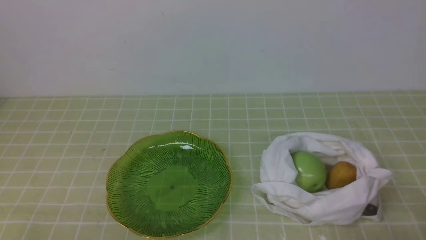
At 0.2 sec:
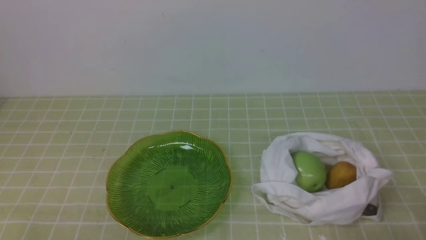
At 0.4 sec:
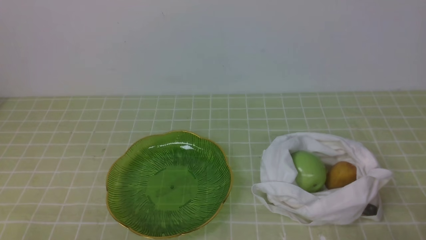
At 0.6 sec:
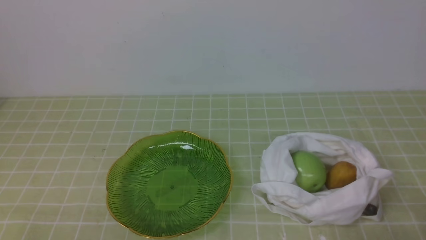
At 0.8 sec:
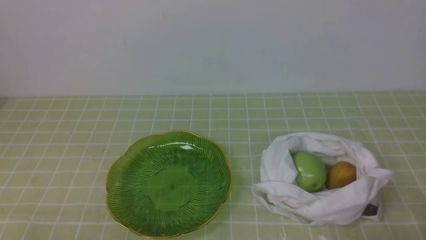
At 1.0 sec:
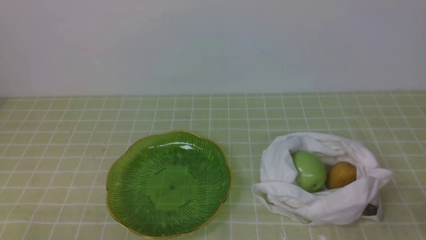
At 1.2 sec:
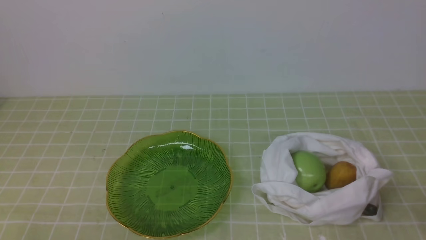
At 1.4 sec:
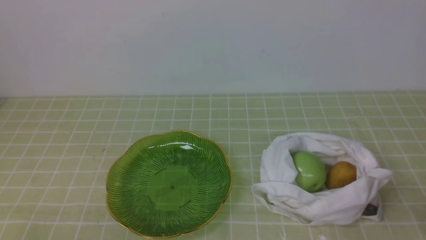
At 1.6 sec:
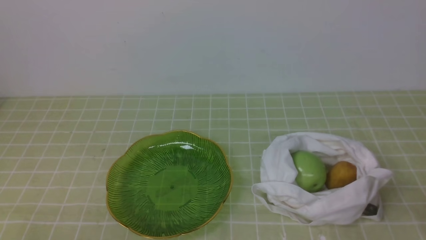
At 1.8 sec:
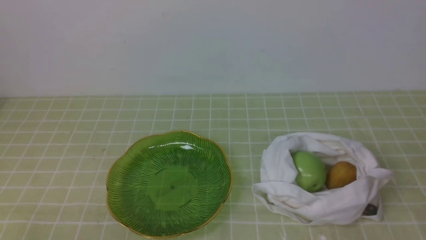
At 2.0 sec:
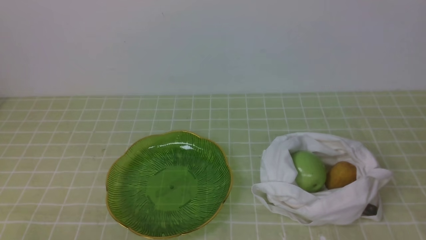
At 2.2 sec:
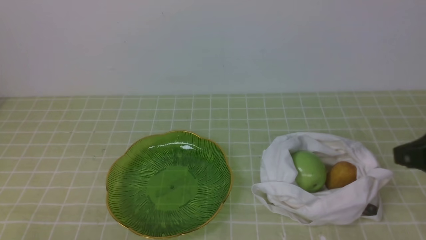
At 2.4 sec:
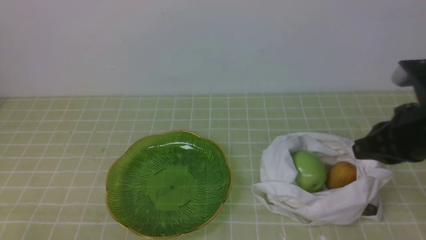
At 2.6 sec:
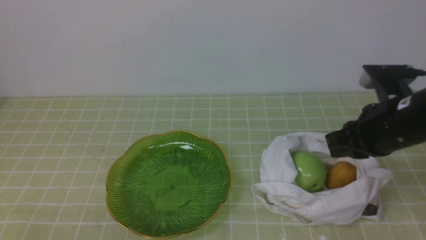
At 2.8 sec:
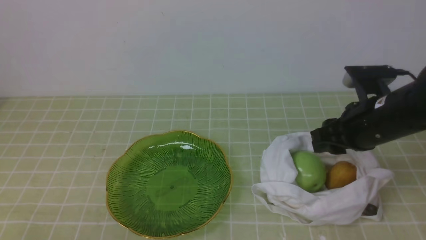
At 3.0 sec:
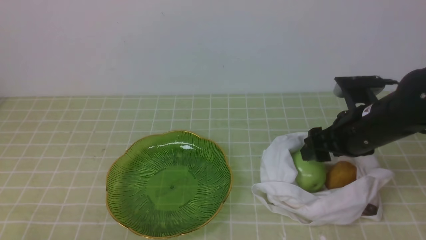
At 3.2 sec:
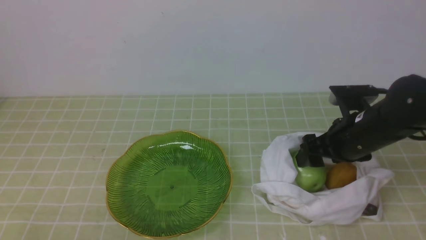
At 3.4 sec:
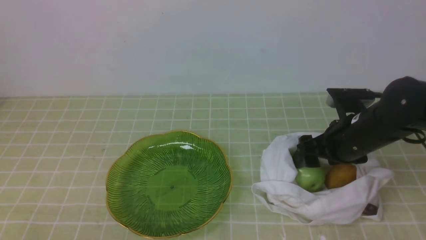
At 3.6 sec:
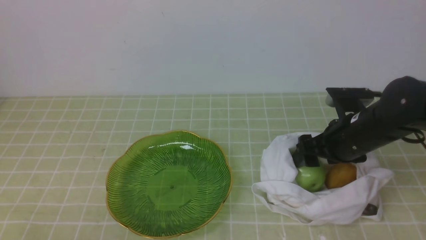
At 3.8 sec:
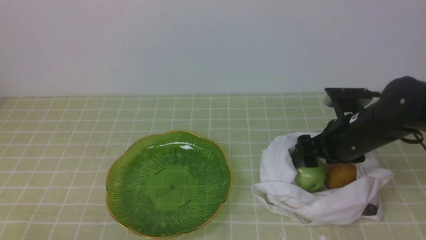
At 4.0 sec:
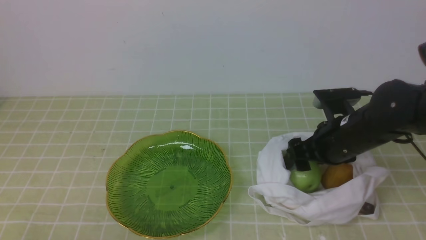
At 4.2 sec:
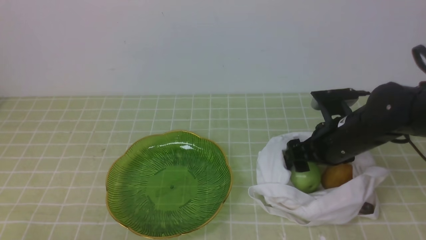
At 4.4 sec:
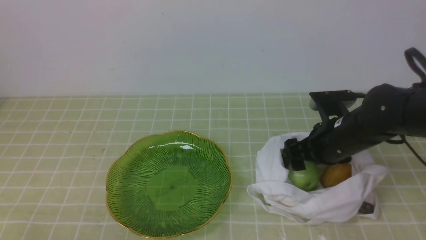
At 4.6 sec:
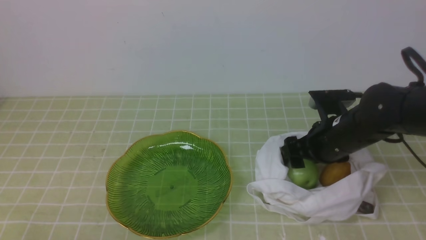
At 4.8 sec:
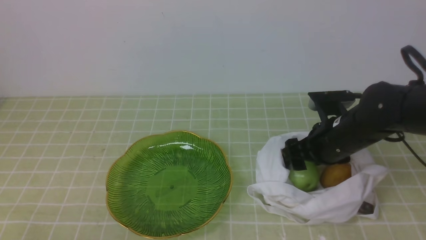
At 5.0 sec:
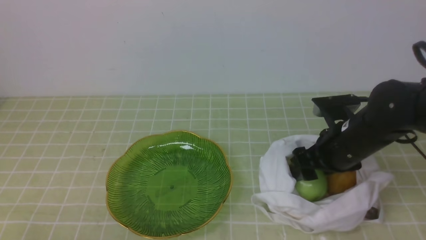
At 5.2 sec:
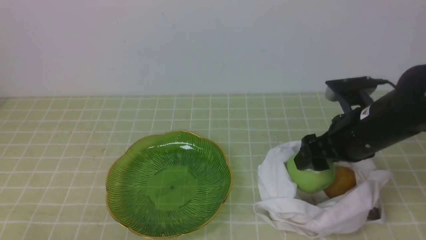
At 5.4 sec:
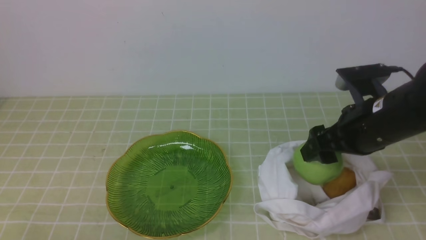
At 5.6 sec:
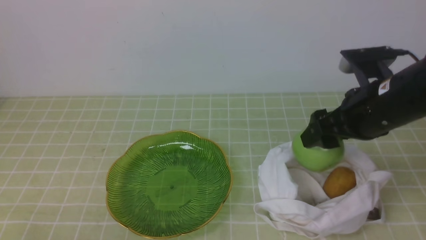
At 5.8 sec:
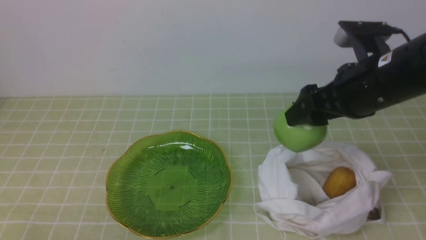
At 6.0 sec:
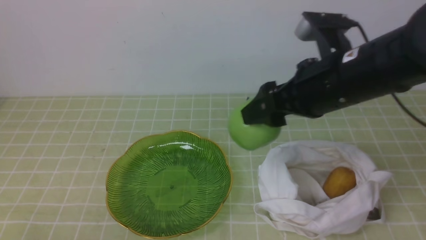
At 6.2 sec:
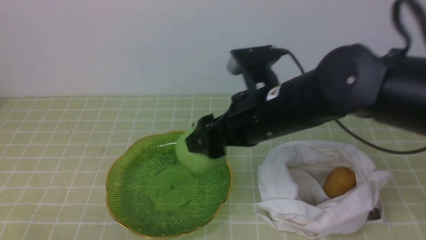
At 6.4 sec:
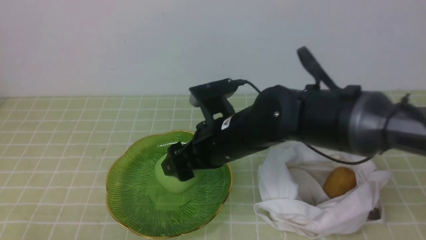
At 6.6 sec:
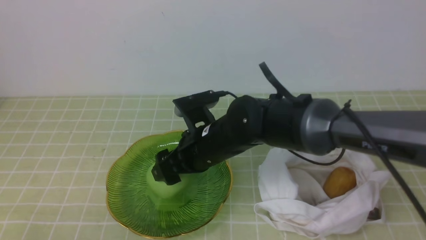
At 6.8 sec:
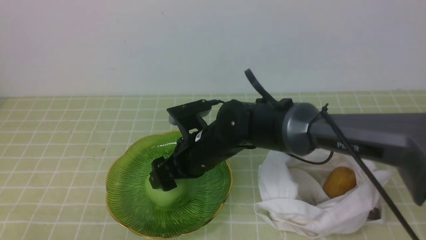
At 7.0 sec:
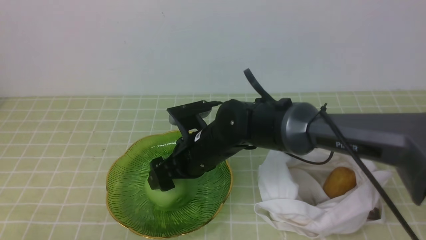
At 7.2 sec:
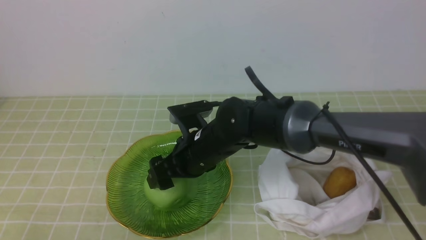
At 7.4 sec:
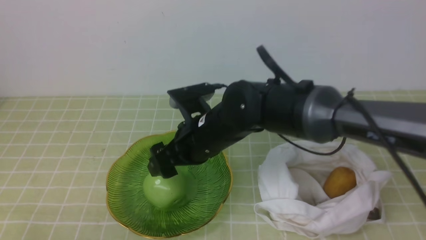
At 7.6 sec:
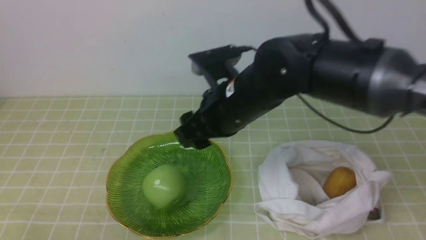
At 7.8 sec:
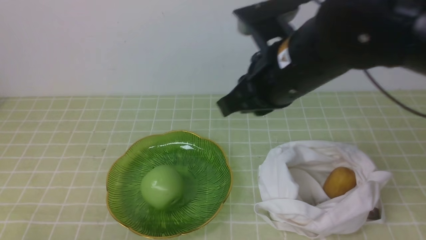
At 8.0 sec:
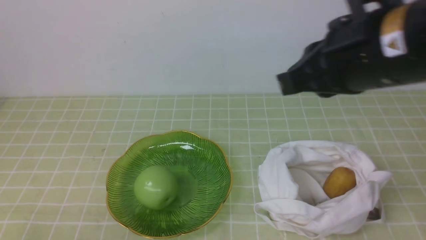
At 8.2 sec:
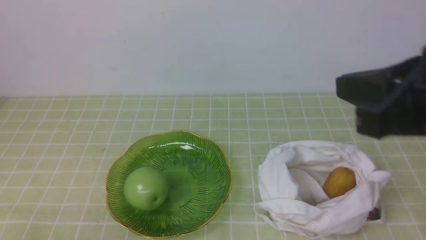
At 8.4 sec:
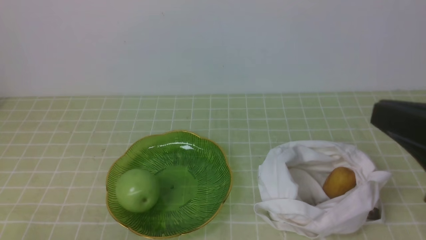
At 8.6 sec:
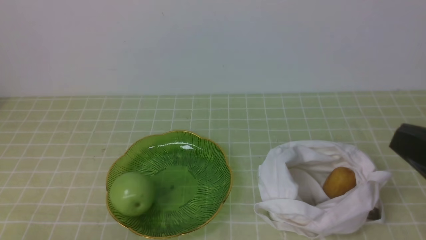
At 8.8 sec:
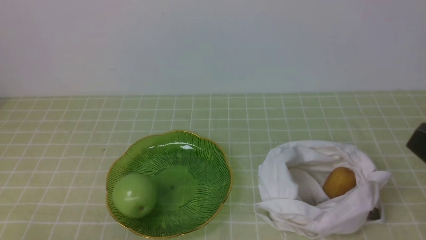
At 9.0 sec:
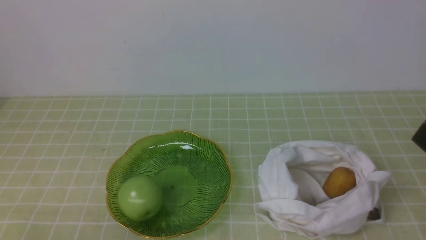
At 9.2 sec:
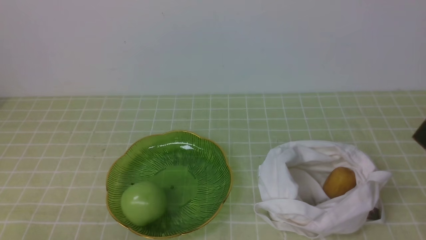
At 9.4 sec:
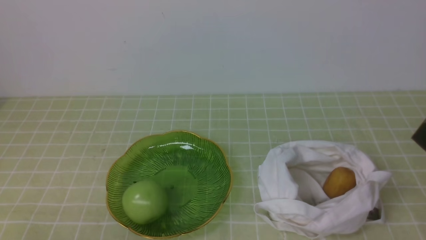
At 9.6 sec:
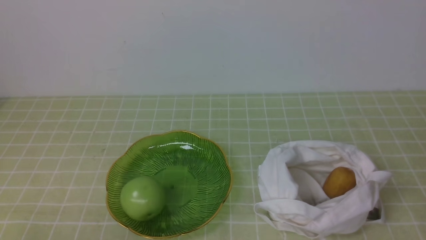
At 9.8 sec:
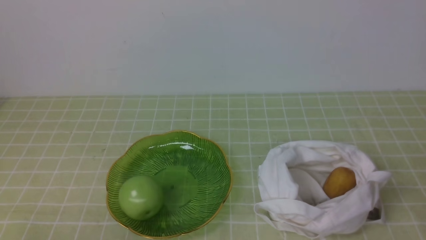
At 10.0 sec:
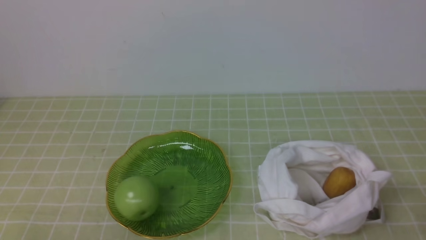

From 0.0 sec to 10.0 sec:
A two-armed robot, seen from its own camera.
Step, from 0.0 sec to 5.0 sec: use the right arm to grab an apple from the bag.
Step, from 5.4 sec to 7.2 sec: use the right arm to put the apple into the empty plate on the left.
From 1.4 sec to 2.8 sec: The right gripper travels forward and to the left by some 25 cm, and opens.
From 2.8 sec to 4.2 sec: The right gripper goes roughly 5 cm downward, and opens its fingers.
From 4.2 sec to 5.8 sec: The right gripper travels upward by about 10 cm.
From 5.8 sec to 7.2 sec: The right gripper shifts roughly 20 cm to the left and downward.
From 7.2 sec to 8.6 sec: The right gripper shifts roughly 35 cm to the right, backward and upward, and closes.
From 8.6 sec to 10.0 sec: The right gripper shifts some 15 cm downward and to the right.

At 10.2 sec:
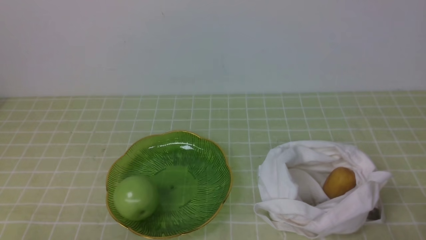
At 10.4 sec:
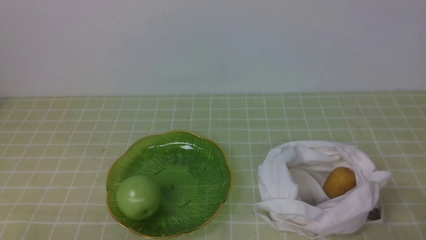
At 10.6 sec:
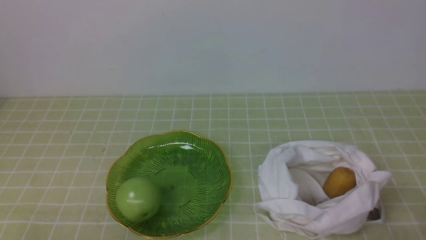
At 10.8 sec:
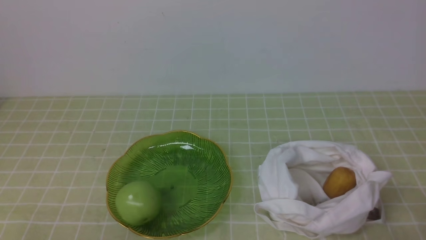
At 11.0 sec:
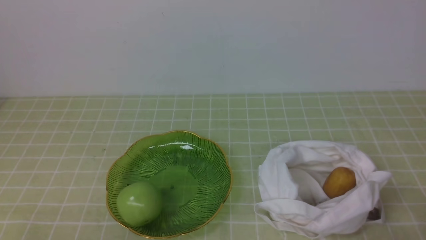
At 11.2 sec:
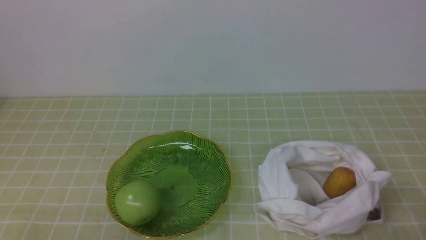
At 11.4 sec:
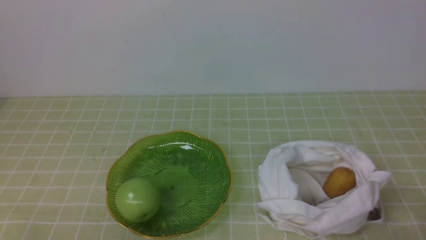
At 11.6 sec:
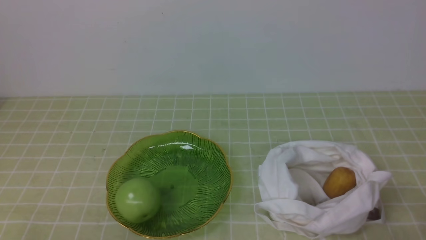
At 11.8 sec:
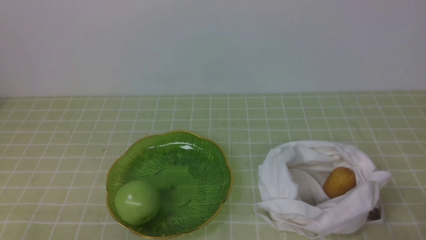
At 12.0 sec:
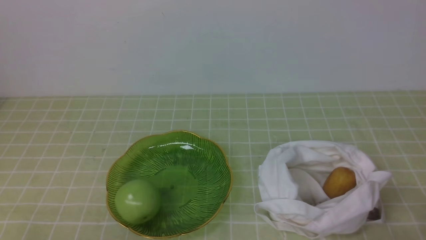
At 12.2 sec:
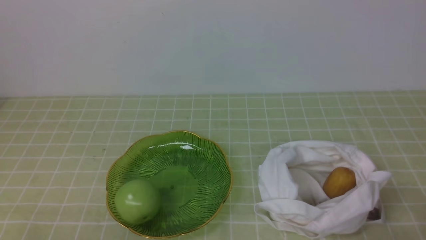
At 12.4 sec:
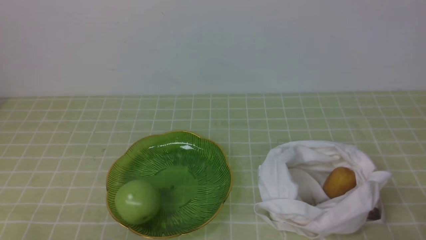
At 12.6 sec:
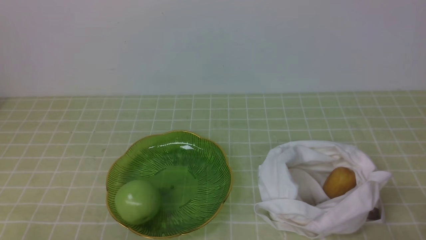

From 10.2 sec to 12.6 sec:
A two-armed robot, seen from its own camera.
From 10.2 sec to 12.6 sec: Both grippers stay about where they are.
